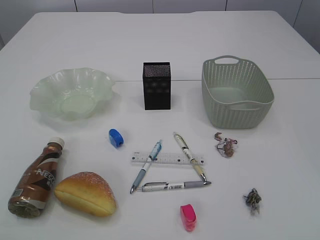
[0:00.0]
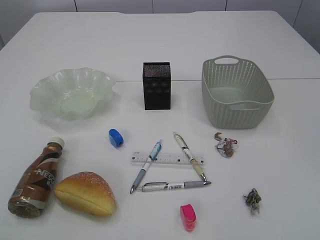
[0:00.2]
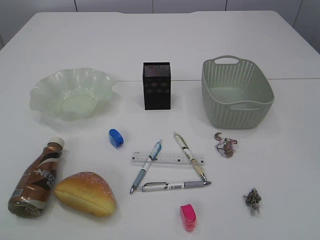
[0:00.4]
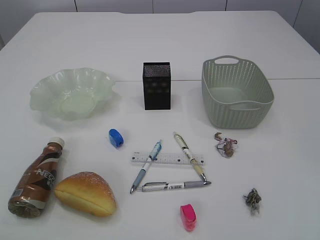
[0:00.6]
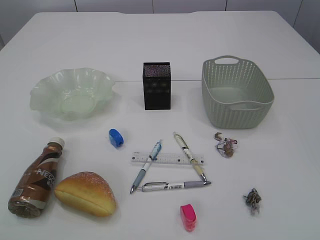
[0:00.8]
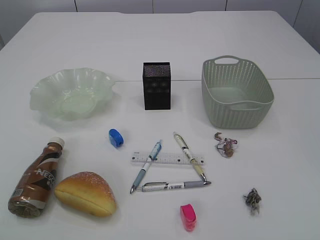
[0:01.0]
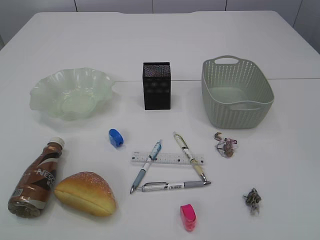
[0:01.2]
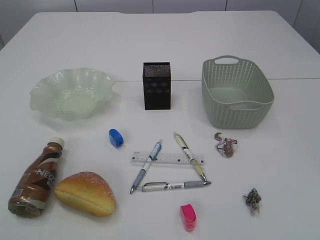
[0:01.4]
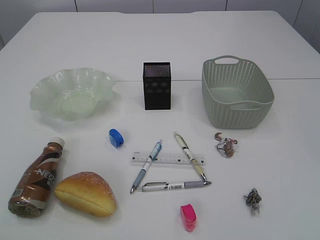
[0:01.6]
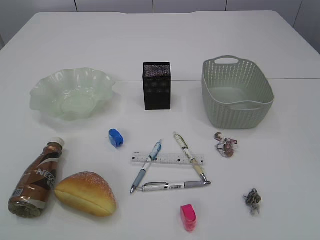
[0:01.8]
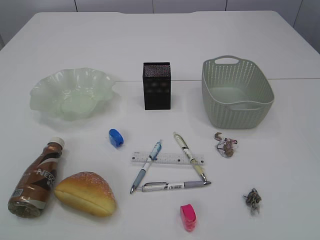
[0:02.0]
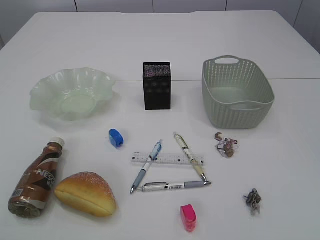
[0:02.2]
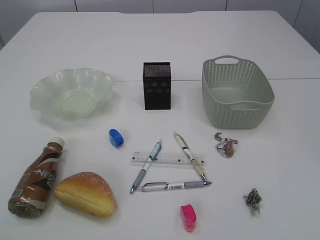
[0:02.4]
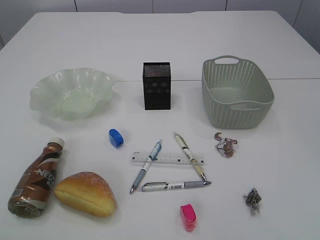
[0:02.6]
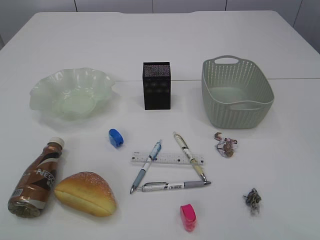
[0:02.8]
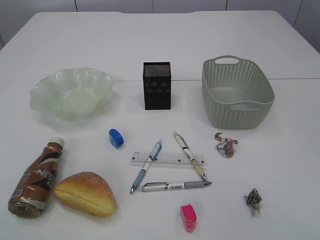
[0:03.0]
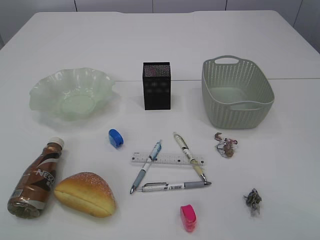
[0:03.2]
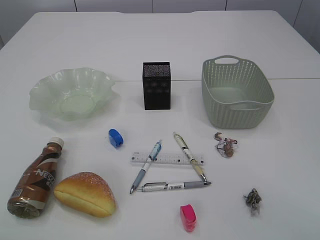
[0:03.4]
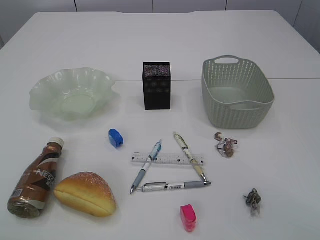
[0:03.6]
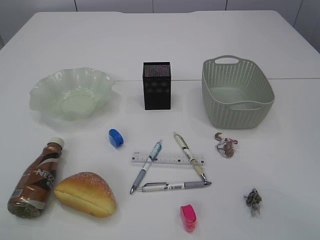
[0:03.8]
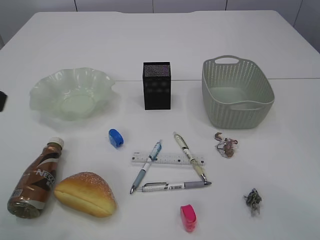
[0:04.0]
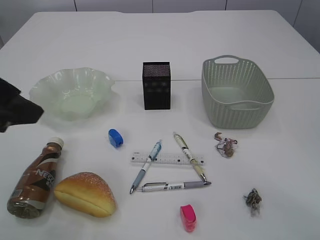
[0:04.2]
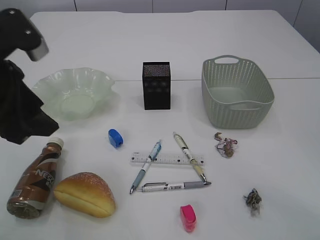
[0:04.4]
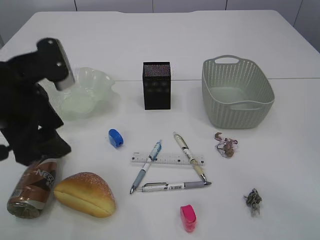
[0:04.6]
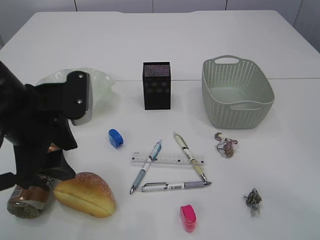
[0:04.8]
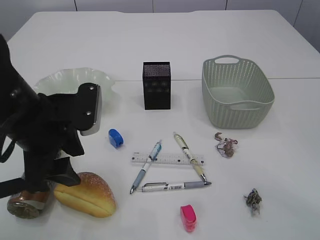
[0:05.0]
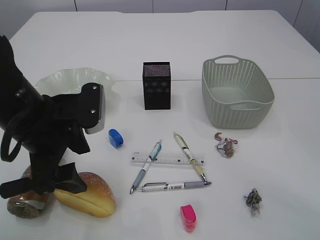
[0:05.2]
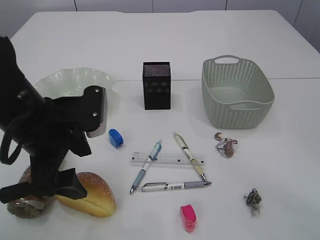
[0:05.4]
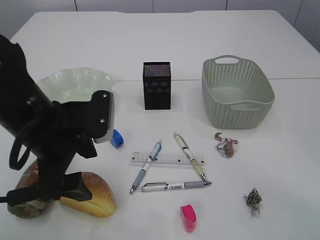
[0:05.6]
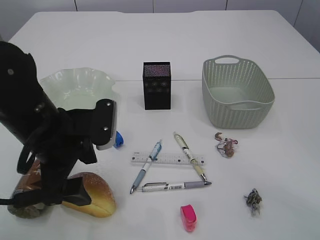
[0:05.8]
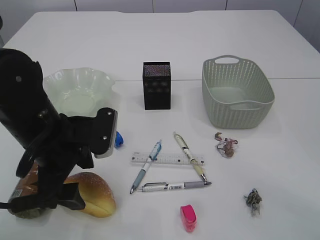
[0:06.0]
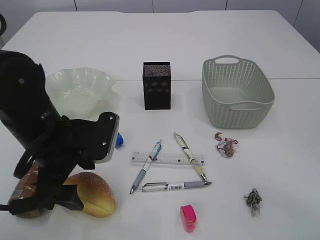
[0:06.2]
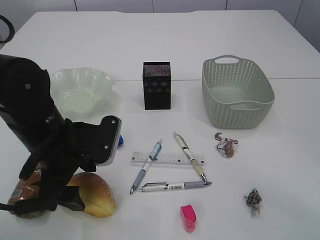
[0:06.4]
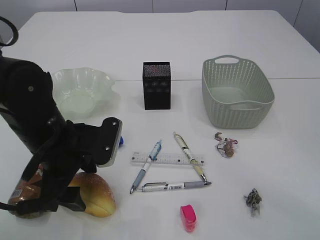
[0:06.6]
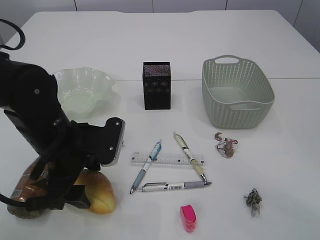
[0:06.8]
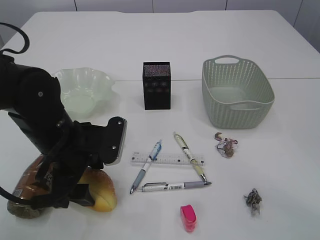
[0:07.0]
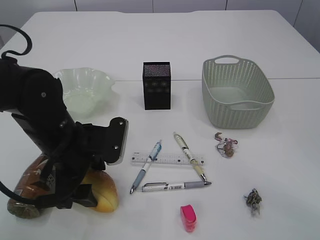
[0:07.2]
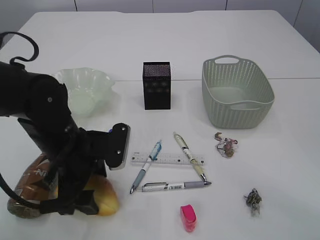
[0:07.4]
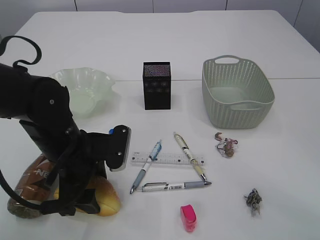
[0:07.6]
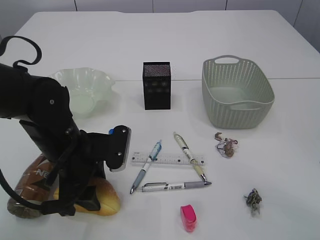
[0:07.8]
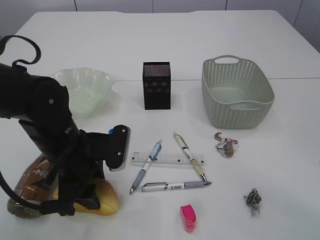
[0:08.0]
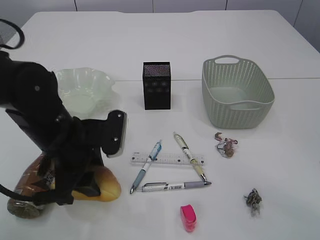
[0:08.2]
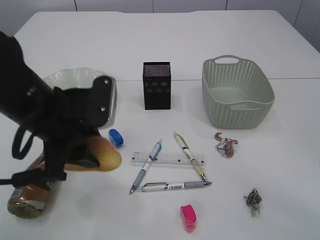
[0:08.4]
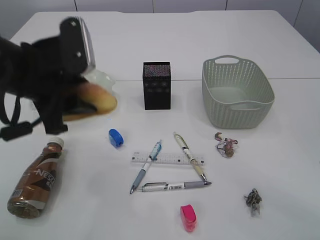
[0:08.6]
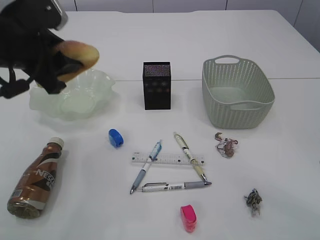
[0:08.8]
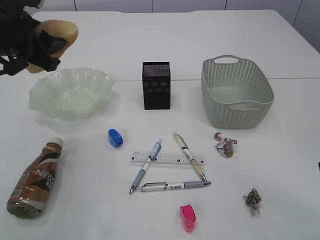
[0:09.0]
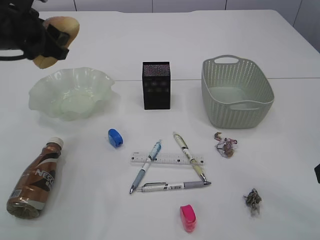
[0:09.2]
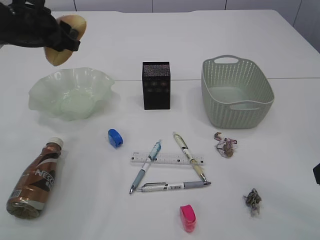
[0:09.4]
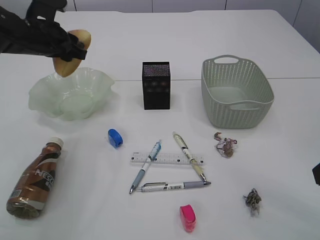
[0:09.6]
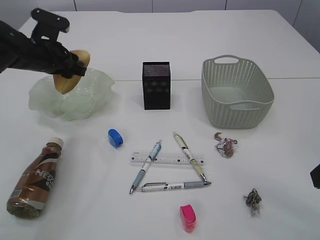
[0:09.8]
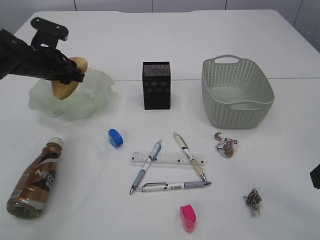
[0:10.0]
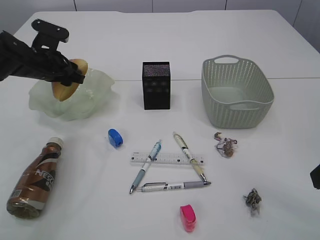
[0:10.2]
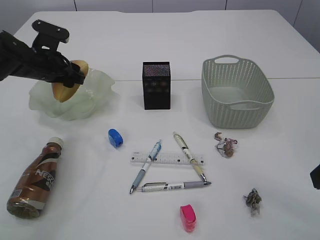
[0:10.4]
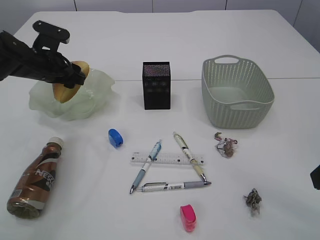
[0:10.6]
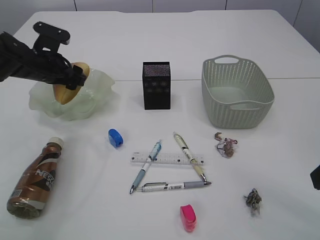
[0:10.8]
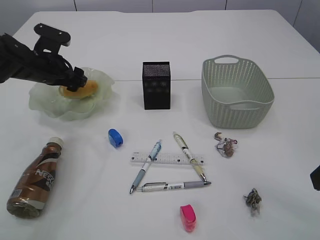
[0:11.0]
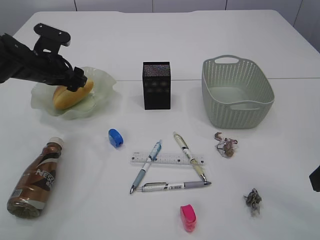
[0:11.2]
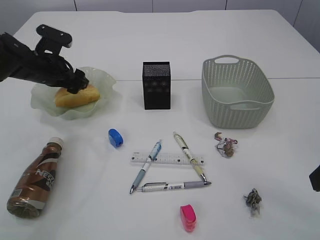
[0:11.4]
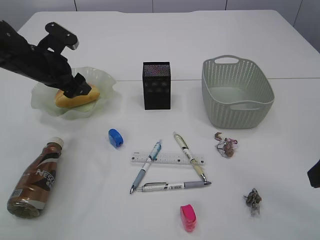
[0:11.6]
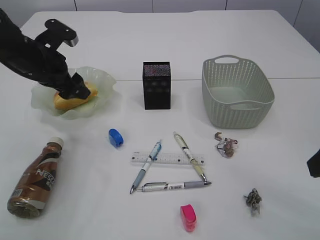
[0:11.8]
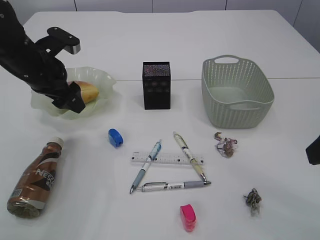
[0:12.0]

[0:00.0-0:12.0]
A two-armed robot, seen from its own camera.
Step, 0:08.6 to 0:11.8: place the bread in the plate.
0:03.0 to 0:04.4: The left gripper moves forward and to the right, some 25 cm.
0:04.4 to 0:06.0: The left gripper shifts roughly 10 cm downward and to the right, and opens up.
0:06.0 to 0:07.6: The left gripper ends up about 5 cm from where it was.
0:07.6 to 0:09.0: The left gripper is displaced upward, to the left and forward by roughly 20 cm, and closes its fingers.
0:09.0 to 0:10.4: The left gripper heads forward and downward, covering approximately 15 cm, and opens up.
0:10.4 to 0:12.0: The left gripper shifts roughly 5 cm backward, and opens its fingers.

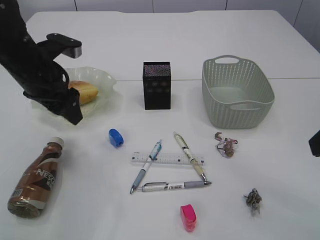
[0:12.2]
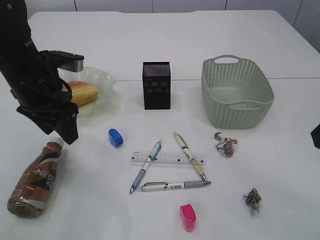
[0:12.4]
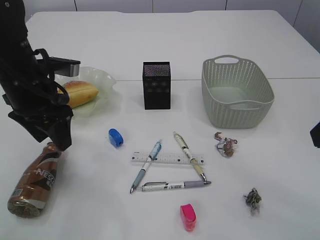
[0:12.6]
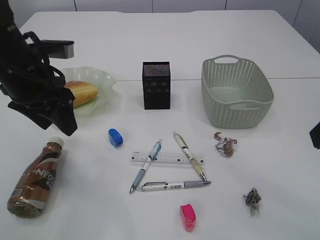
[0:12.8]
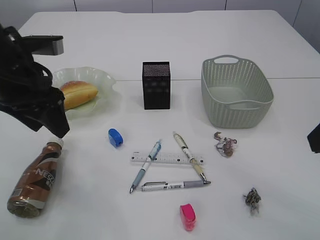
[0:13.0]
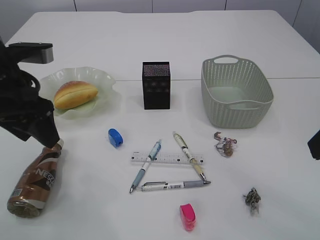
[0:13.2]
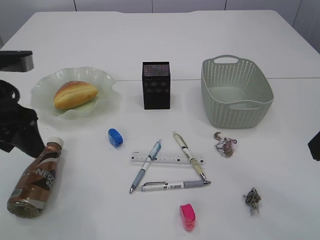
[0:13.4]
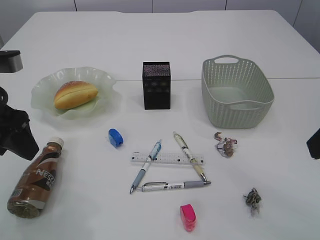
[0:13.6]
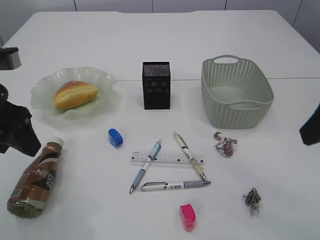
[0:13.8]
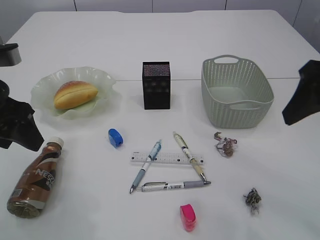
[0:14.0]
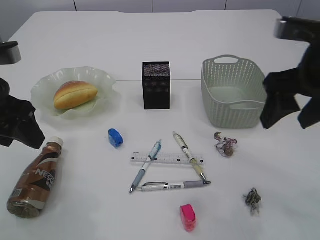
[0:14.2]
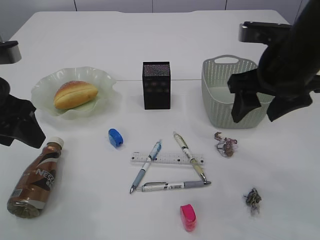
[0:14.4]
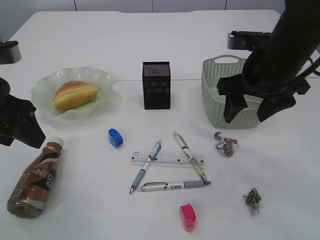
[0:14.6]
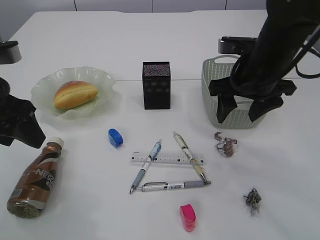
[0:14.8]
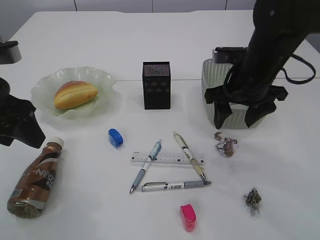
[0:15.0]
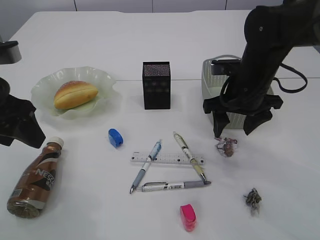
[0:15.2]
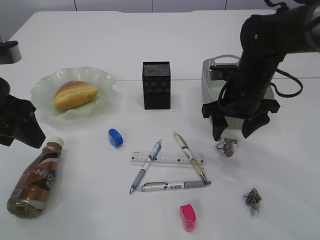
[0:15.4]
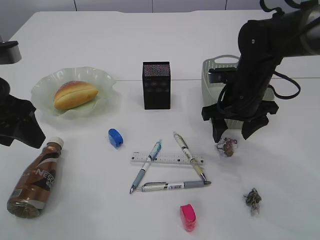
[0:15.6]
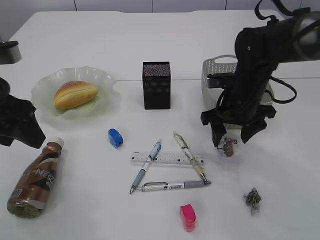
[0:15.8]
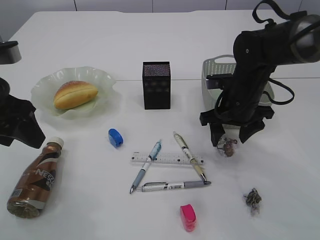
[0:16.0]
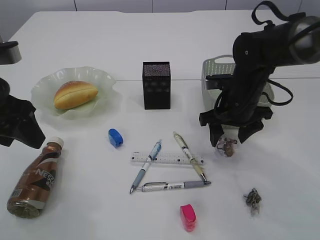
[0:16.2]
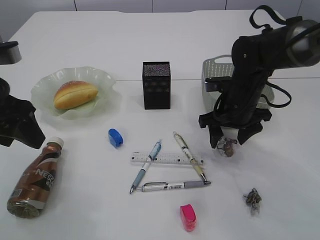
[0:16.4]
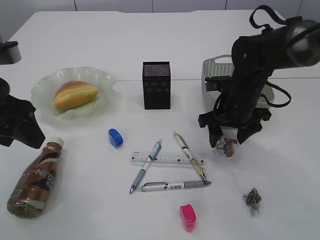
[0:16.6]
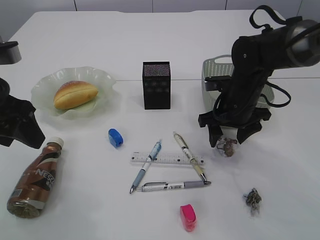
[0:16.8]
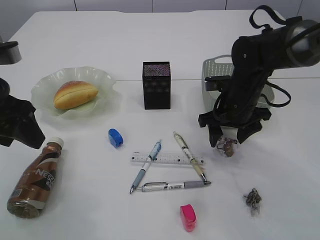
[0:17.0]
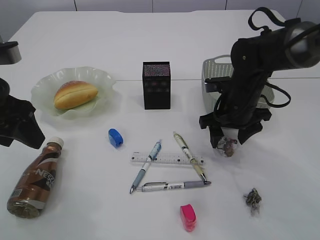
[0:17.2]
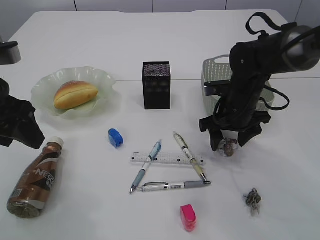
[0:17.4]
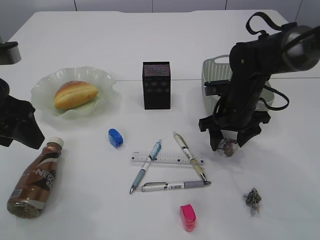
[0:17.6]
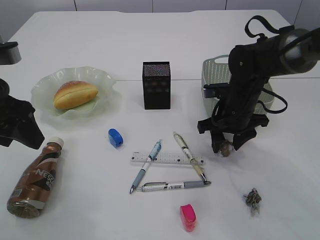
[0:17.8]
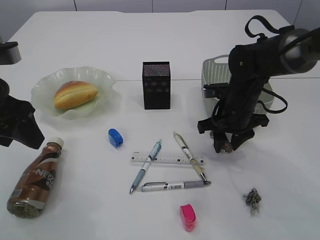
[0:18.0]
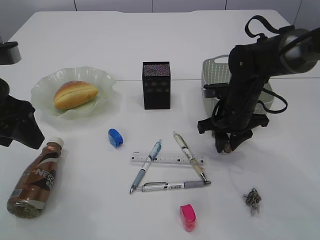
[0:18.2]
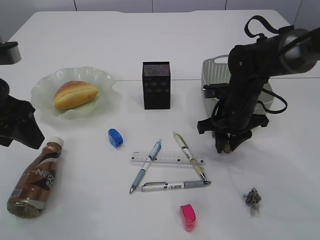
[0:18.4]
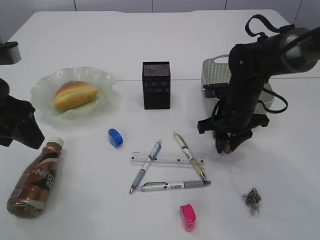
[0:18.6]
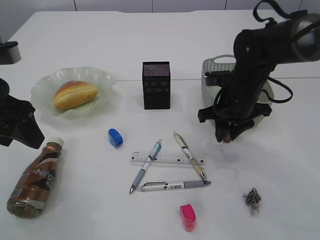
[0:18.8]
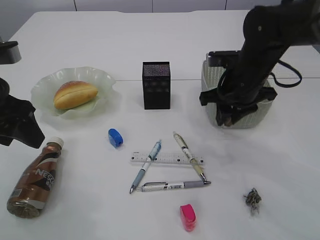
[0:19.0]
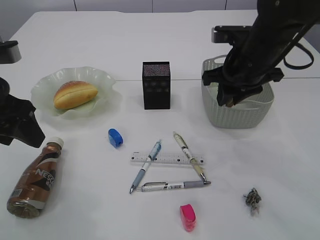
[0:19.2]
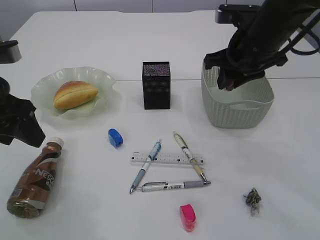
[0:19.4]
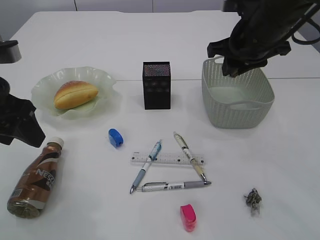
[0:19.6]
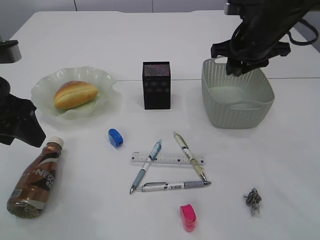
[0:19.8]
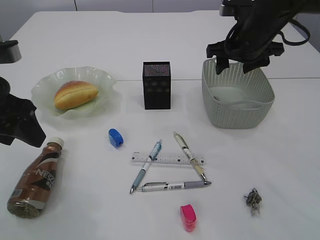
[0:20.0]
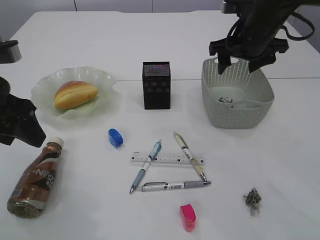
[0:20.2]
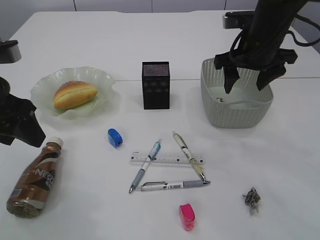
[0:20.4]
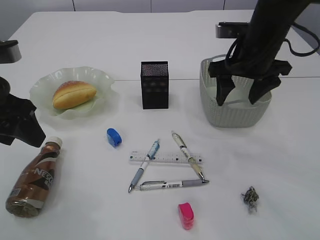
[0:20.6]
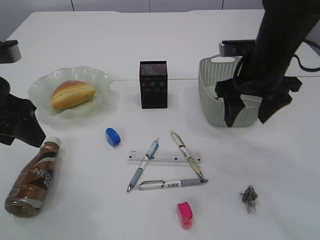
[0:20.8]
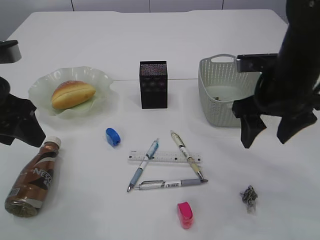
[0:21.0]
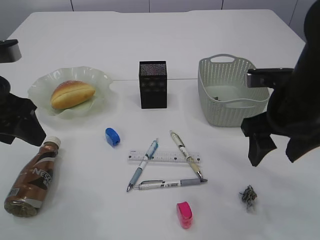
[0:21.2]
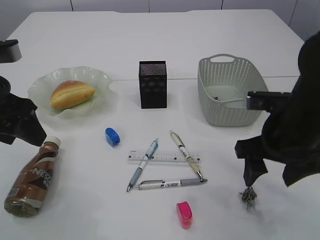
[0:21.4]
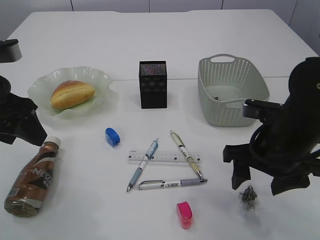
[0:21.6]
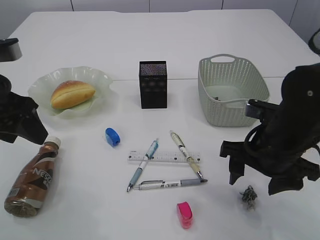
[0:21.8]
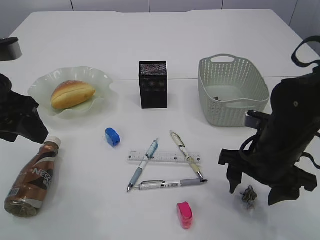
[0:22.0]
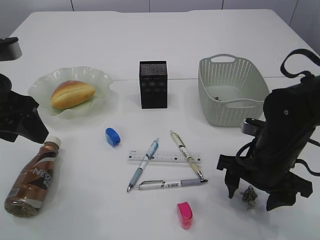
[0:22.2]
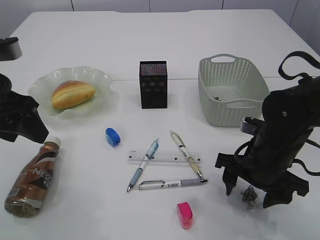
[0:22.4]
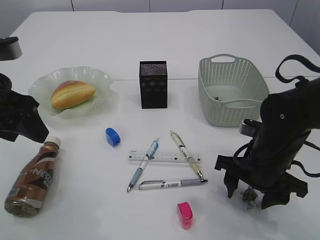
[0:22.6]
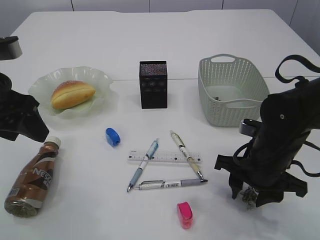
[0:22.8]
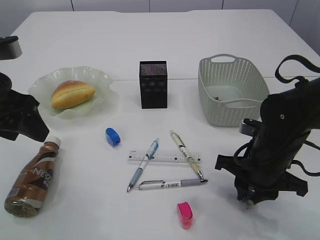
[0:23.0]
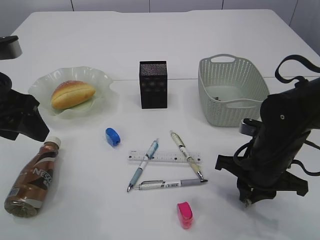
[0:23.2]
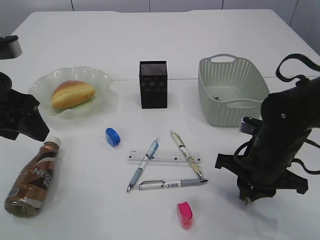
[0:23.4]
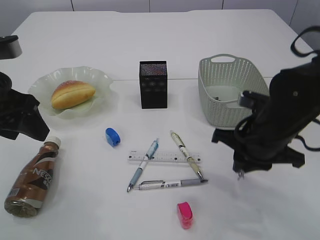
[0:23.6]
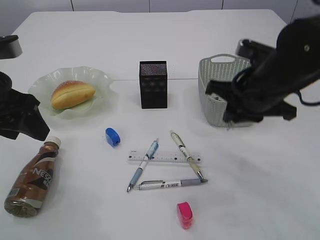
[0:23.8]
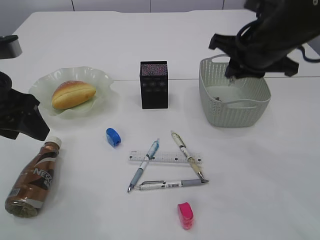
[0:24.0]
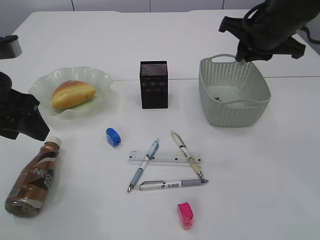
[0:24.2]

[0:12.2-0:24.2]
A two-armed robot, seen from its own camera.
Step, 0:12.2 to 0:19.0: Pick up the waste paper.
Step, 0:19.2 to 0:20.2: Place the waste paper in the basket.
Step, 0:20.4 to 0:23.6: Pick up the waste paper.
0:12.2 to 0:13.8: The left gripper travels backward by approximately 10 cm.
0:13.8 to 0:15.2: The right gripper is displaced forward and downward by approximately 20 cm.
0:15.2 to 0:16.6: The right gripper shifts by about 5 cm.
0:16.6 to 0:18.2: The right gripper closes.
0:18.2 to 0:19.8: The right gripper moves upward, roughly 15 cm.
0:19.8 to 0:21.2: The right gripper moves backward, roughly 15 cm, and opens its fingers.
0:21.2 to 0:22.6: The right gripper is displaced downward by approximately 10 cm.
0:22.6 to 0:24.2: The right gripper shifts approximately 20 cm upward and forward, and closes its fingers.
